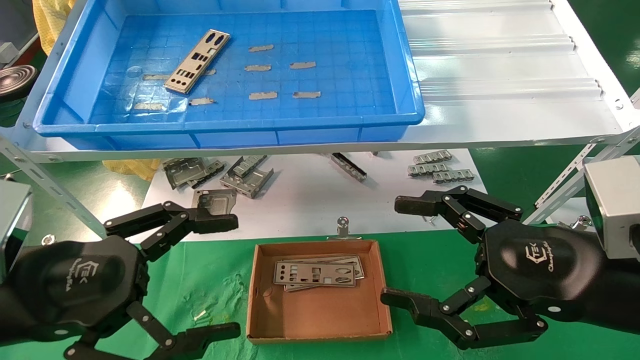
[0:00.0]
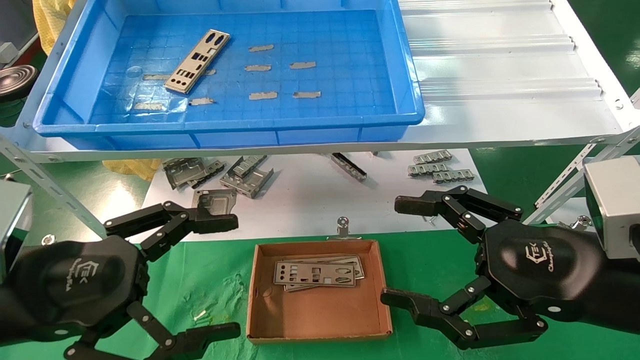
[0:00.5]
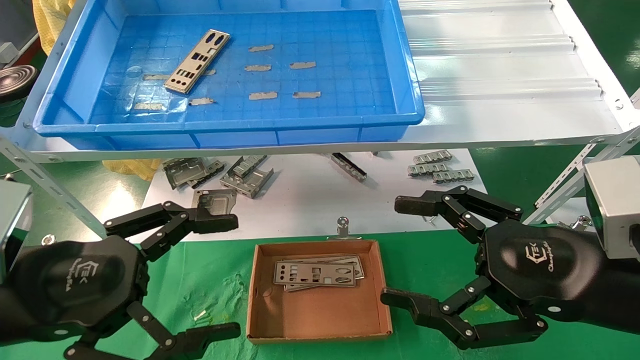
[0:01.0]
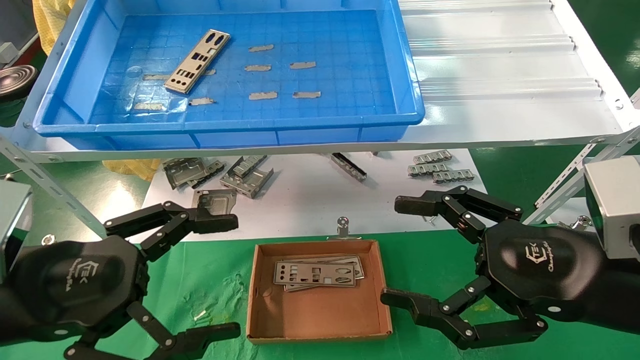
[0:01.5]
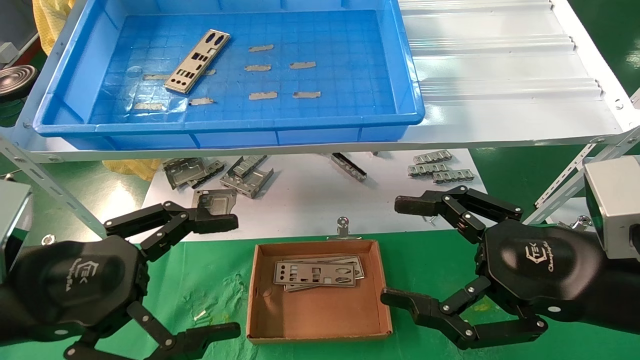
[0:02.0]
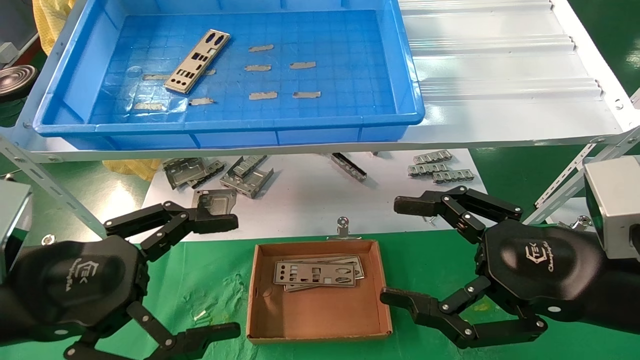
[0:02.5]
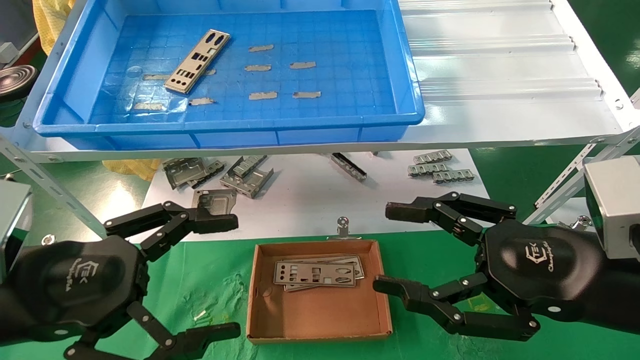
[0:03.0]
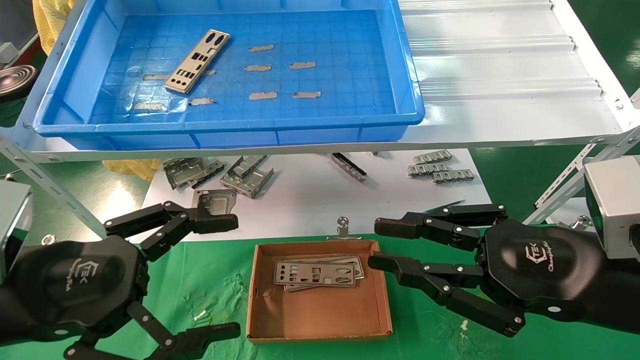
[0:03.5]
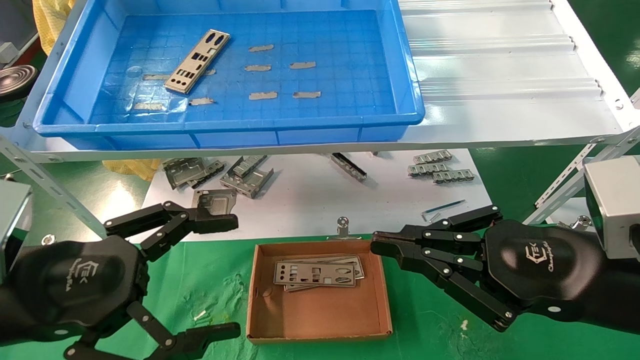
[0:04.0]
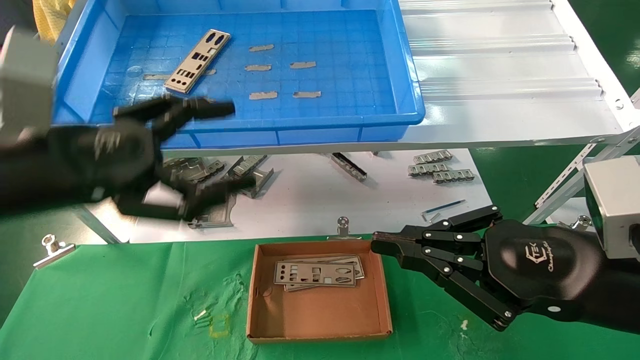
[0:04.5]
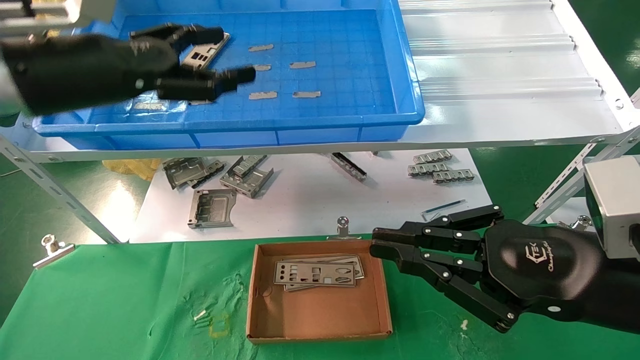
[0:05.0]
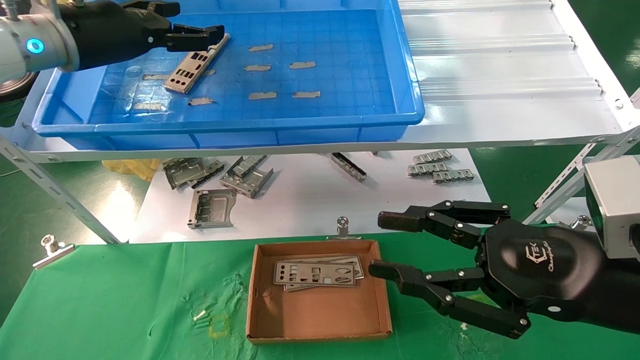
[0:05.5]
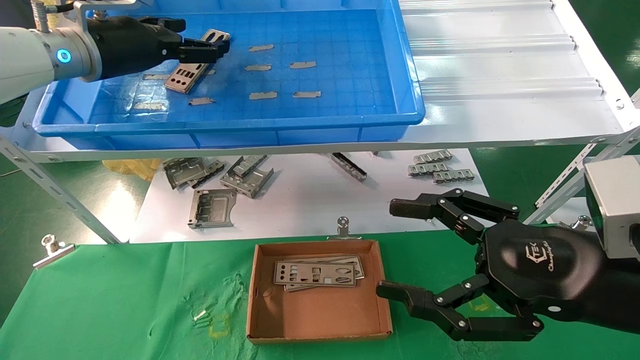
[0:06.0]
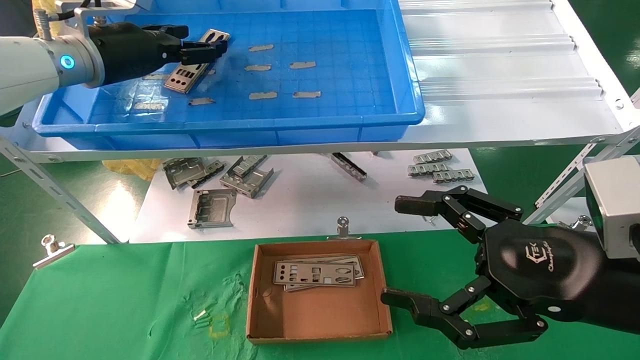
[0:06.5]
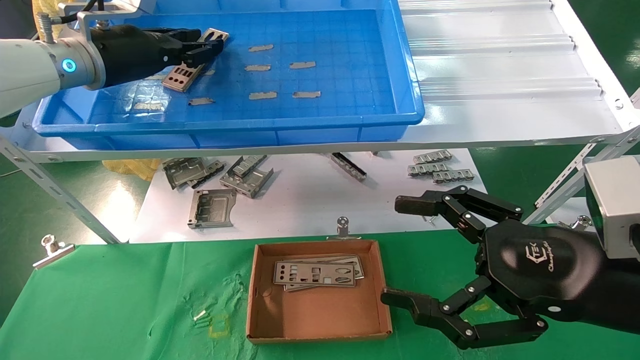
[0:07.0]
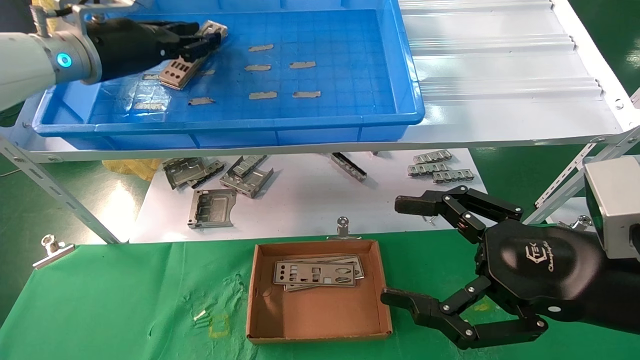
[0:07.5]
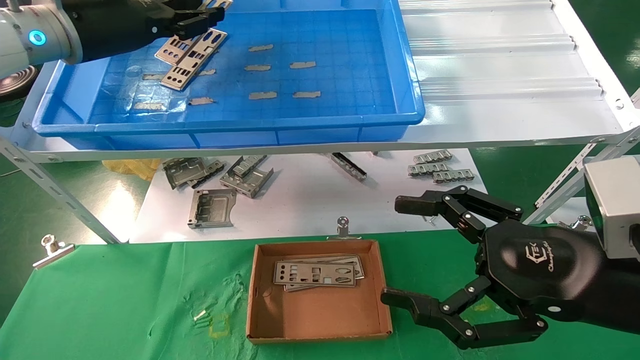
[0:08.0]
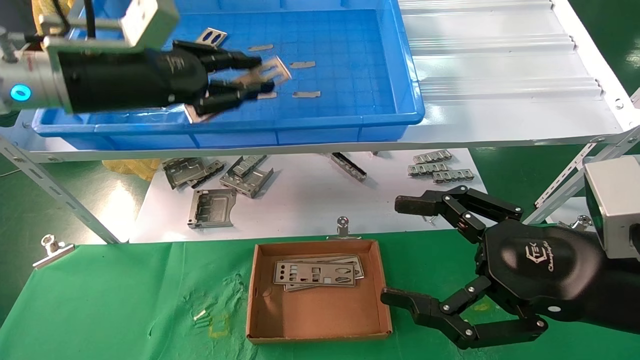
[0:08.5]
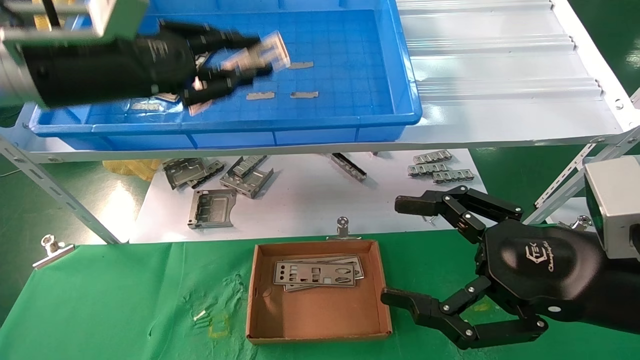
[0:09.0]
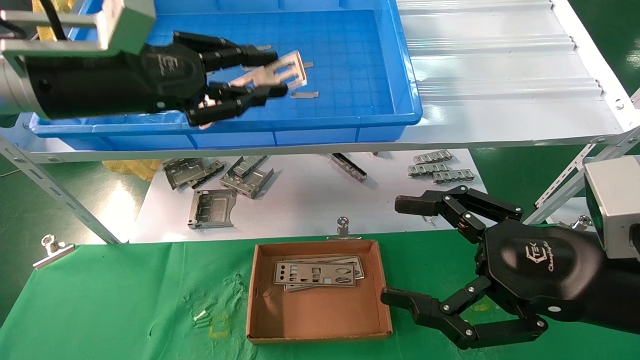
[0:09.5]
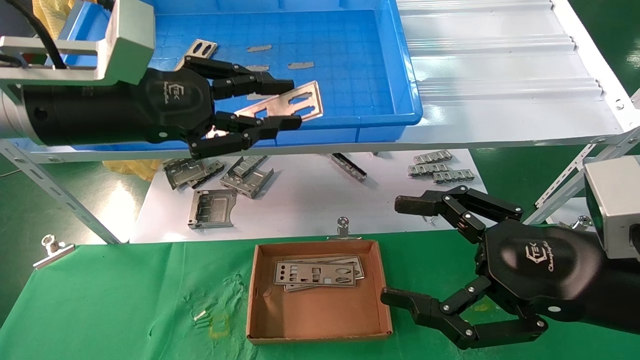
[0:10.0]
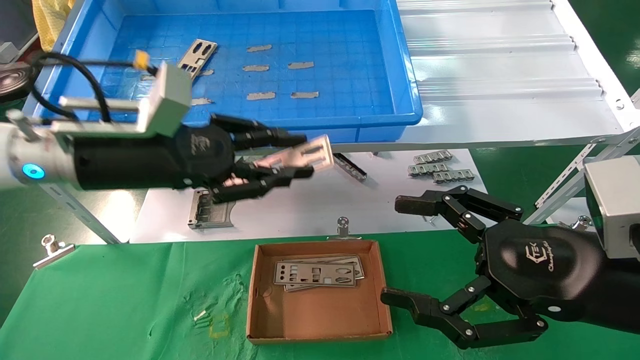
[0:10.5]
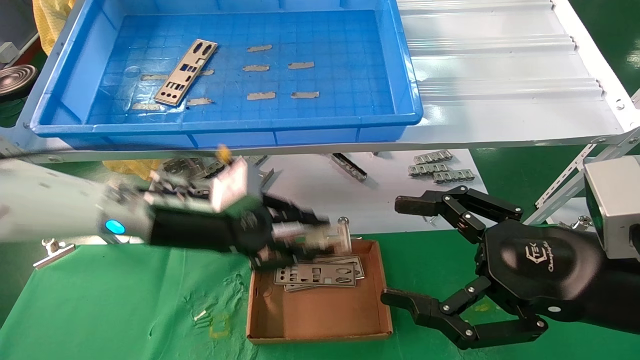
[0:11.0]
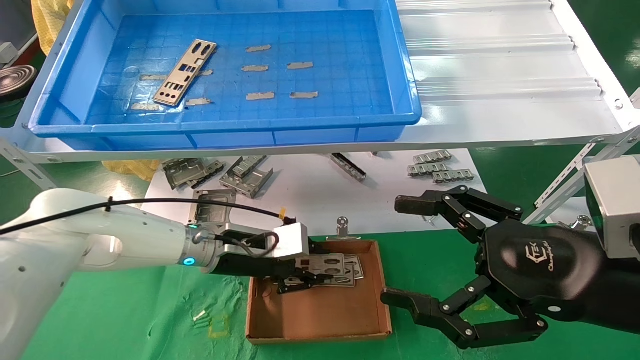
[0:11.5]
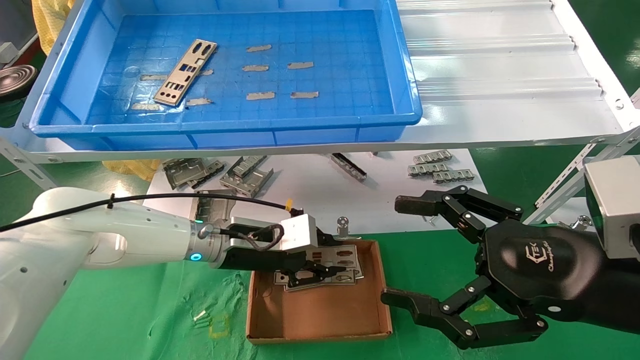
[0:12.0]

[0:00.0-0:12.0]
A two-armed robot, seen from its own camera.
Task of the whole recording: pick up the parts on the tray and put them in the cardboard box.
Step, 0:04.5 to 0:07.0: Pick up the IO bracket from the container box.
0:00.0 to 0:02.0: The two grippers keep their place.
0:02.0 to 0:04.0: The right gripper closes its fingers.
0:04.0 to 0:06.0: The right gripper opens its fingers; the left gripper travels forward and upward by some 30 cm.
0:06.0 to 0:08.0: The left gripper closes its fingers.
0:08.0 to 0:10.0: The left gripper is displaced backward and downward by about 10 cm.
0:10.0 to 0:12.0: The left gripper heads downward, forward and to the right, covering about 25 cm.

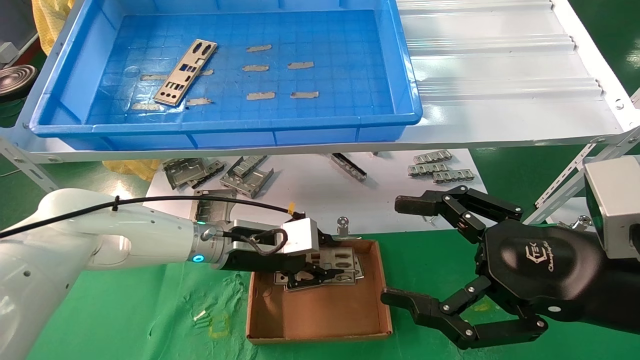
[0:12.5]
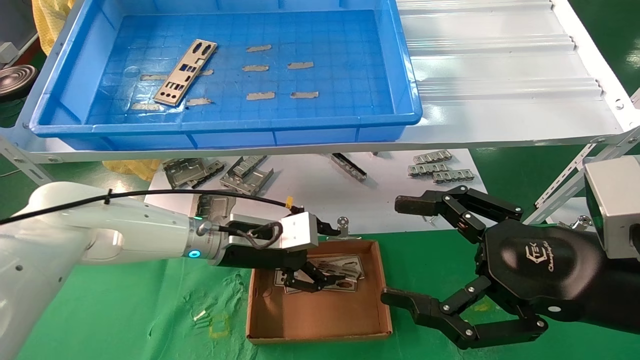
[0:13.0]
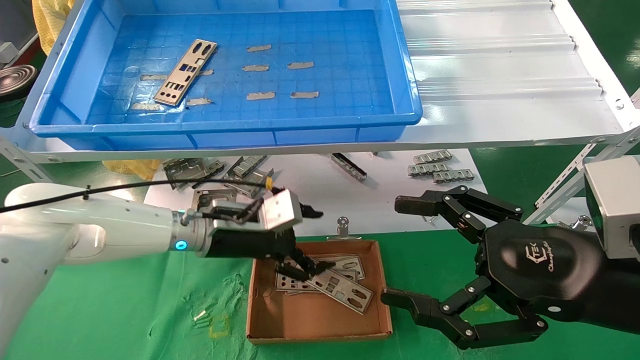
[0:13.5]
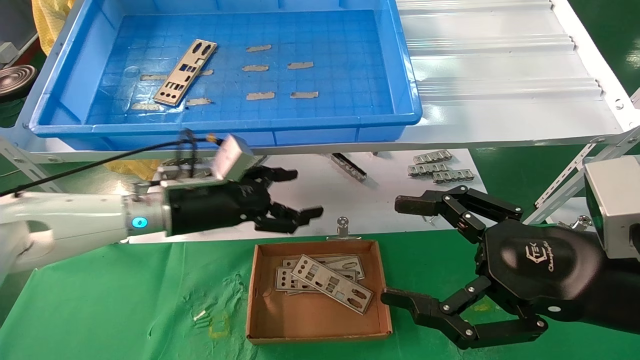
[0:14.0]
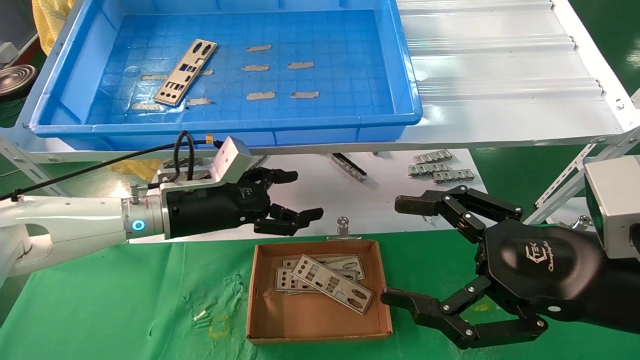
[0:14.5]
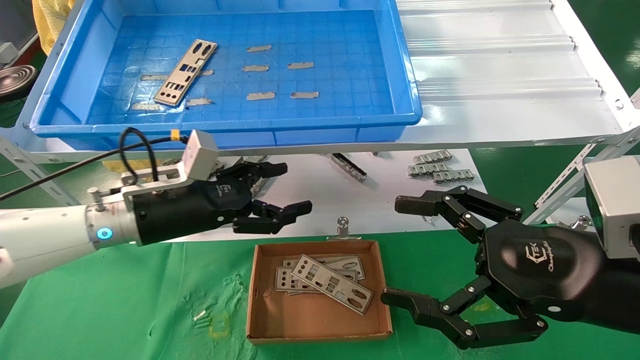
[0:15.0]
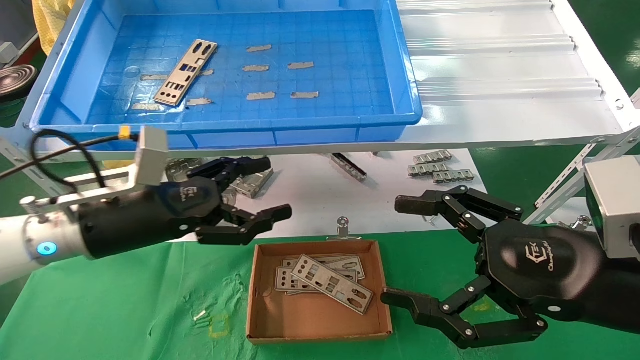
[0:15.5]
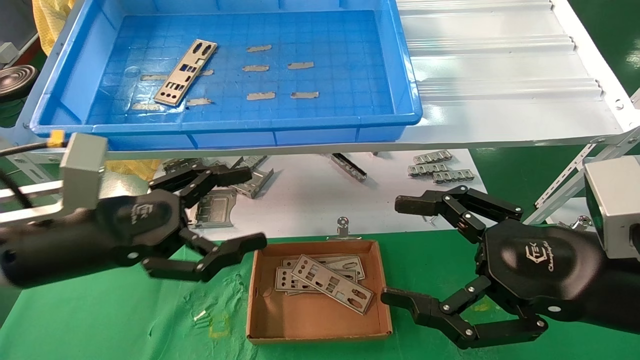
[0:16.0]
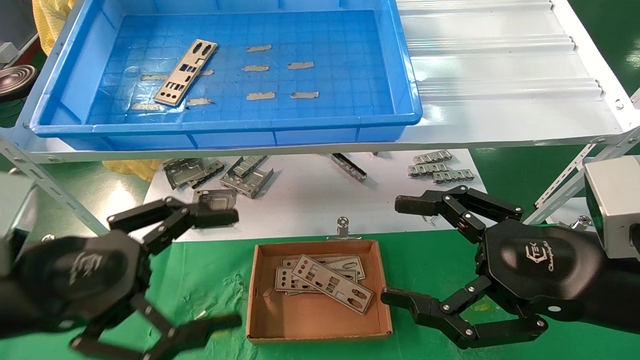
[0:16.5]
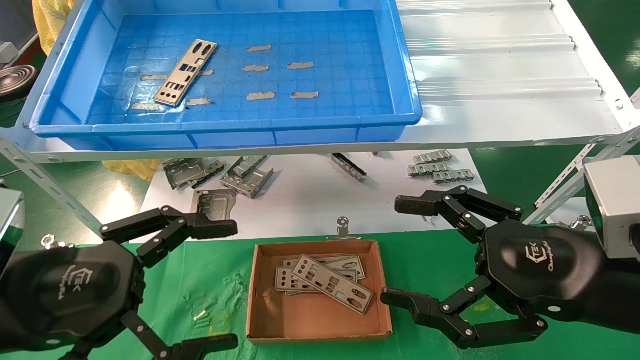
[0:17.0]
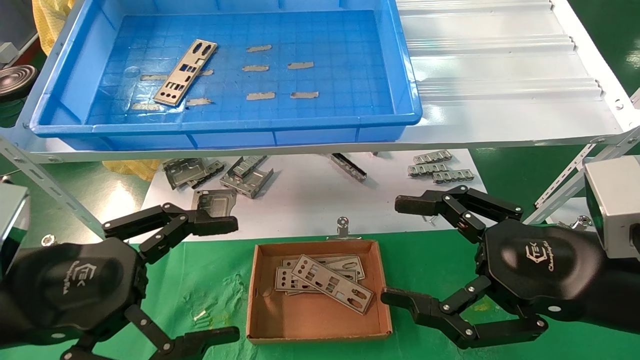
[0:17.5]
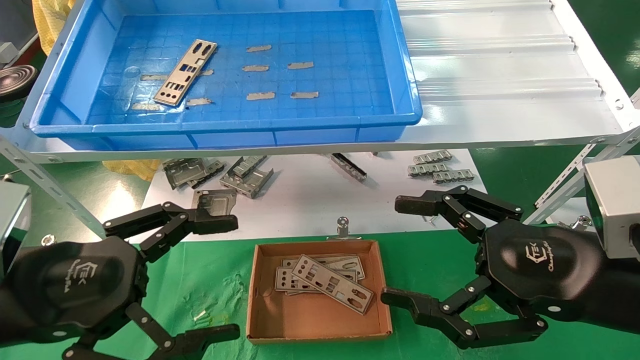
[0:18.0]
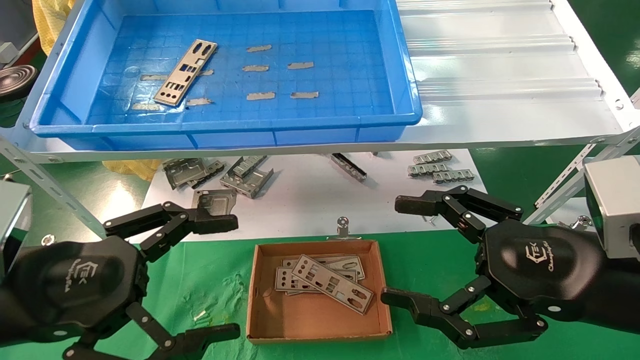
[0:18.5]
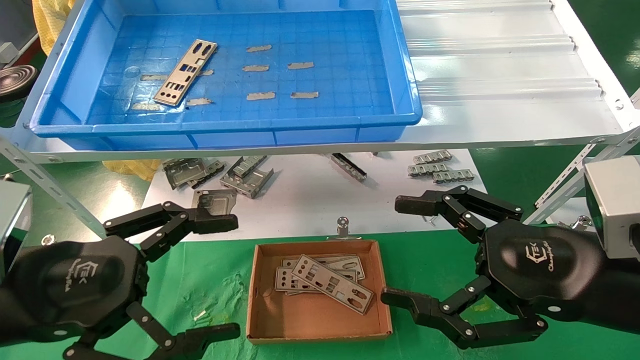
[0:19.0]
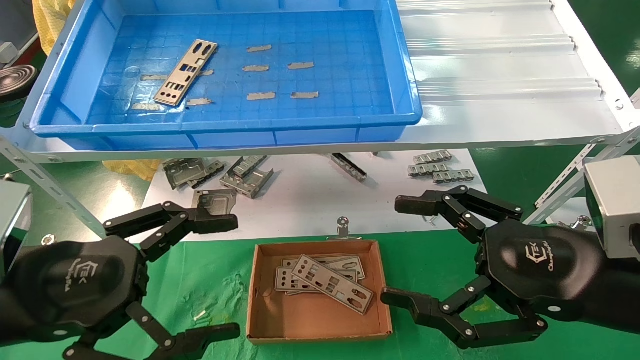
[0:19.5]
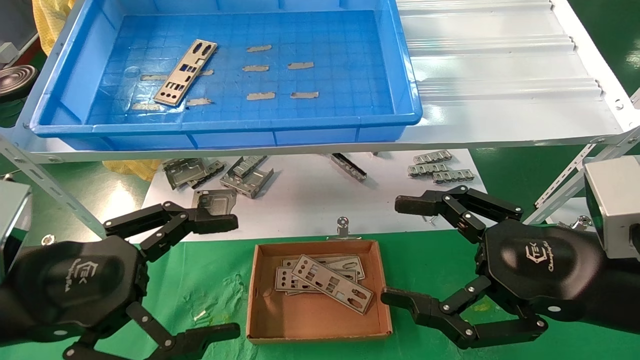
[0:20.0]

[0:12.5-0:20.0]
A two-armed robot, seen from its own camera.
Task of the whole recording: pick up the parts on the tray and put them in the cardboard box.
0:12.5 to 0:14.5: The left gripper heads to the left and upward, covering some 10 cm, and opens.
0:14.5 to 0:16.5: The left gripper heads backward, covering some 20 cm.
0:16.5 to 0:18.0: The grippers move only a little.
0:18.0 to 0:20.0: Both grippers stay about where they are.
